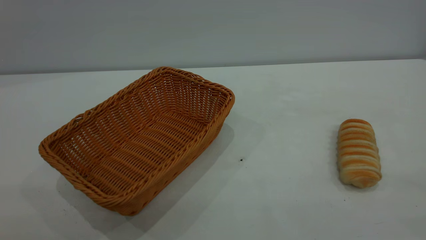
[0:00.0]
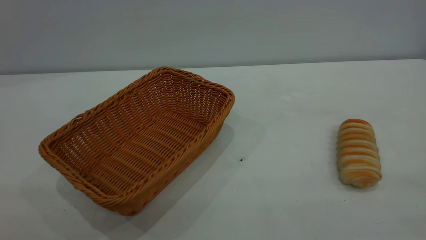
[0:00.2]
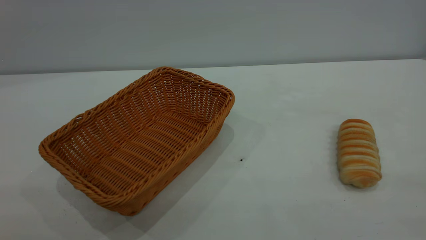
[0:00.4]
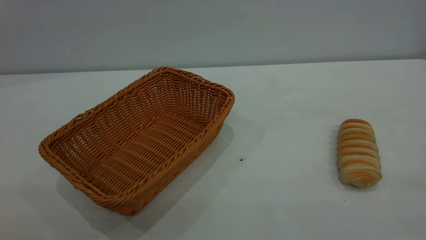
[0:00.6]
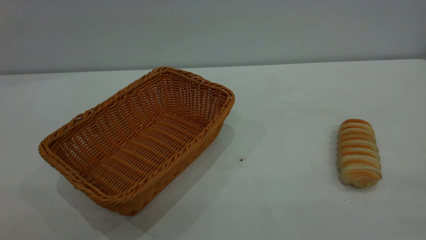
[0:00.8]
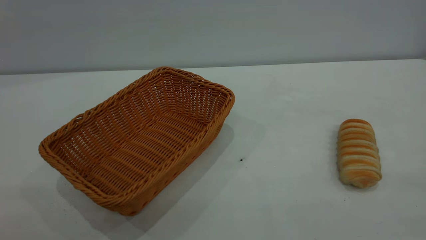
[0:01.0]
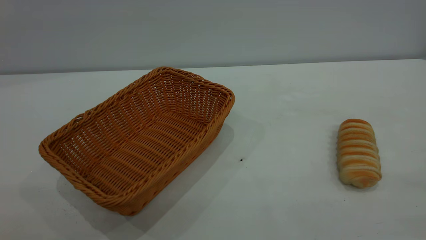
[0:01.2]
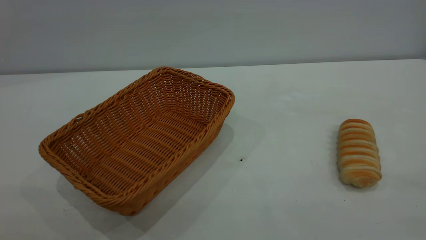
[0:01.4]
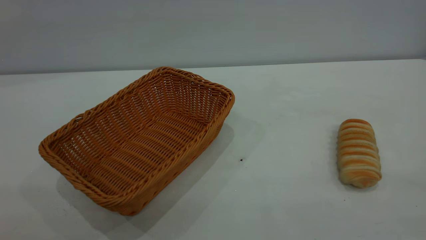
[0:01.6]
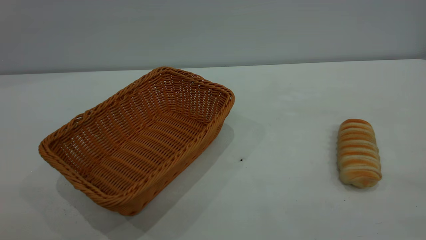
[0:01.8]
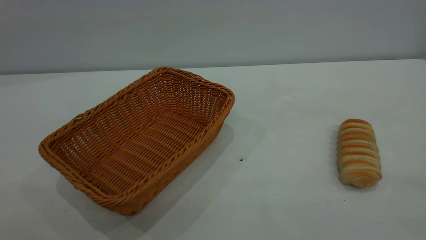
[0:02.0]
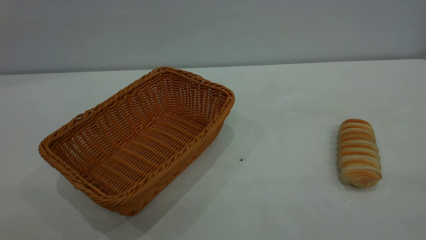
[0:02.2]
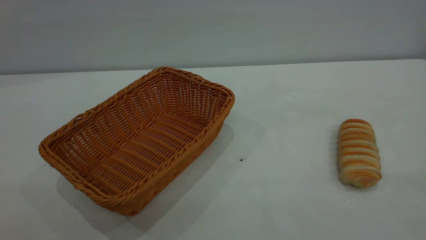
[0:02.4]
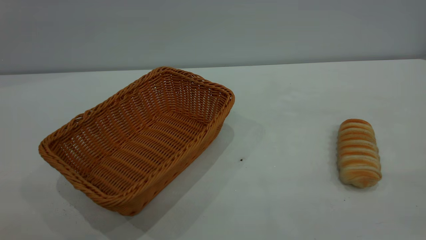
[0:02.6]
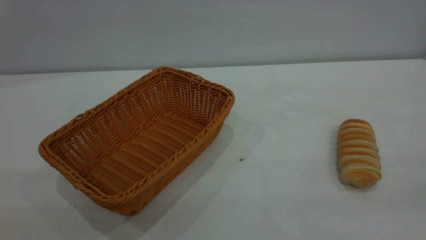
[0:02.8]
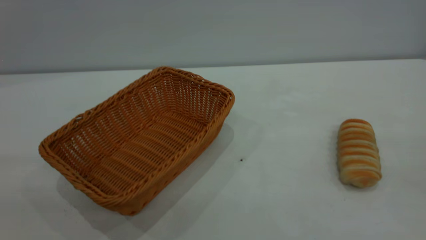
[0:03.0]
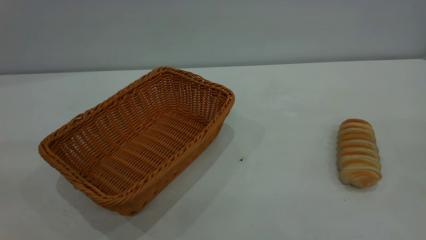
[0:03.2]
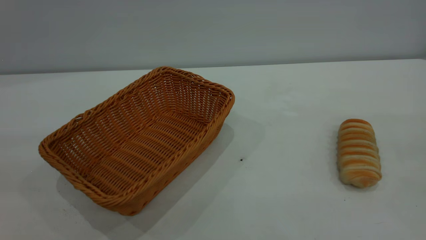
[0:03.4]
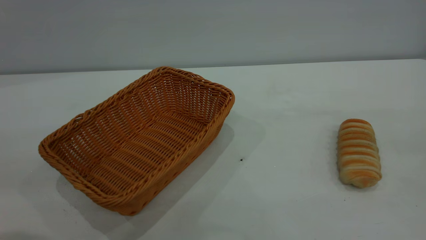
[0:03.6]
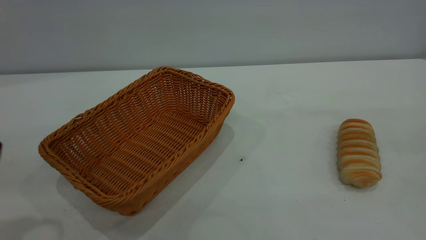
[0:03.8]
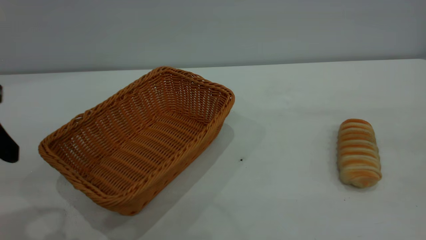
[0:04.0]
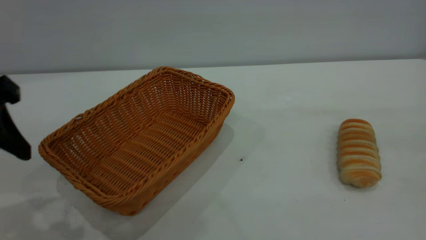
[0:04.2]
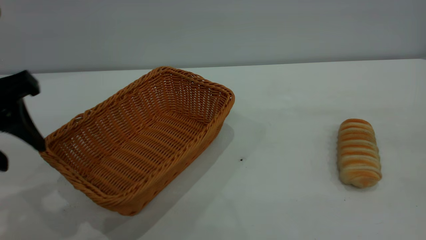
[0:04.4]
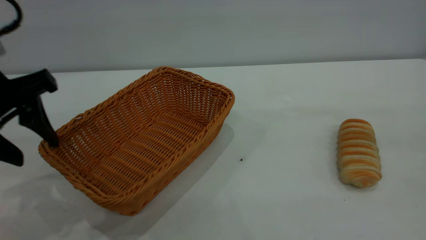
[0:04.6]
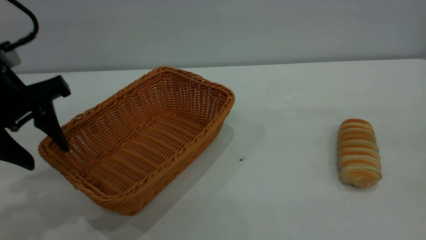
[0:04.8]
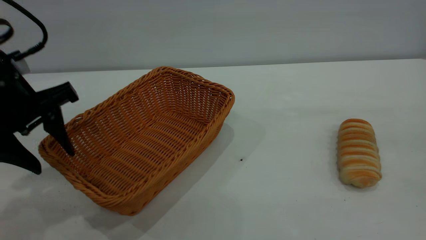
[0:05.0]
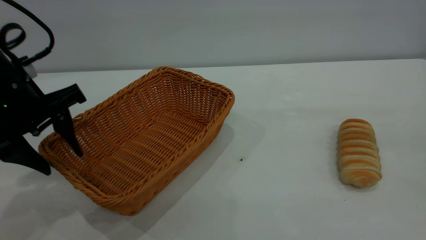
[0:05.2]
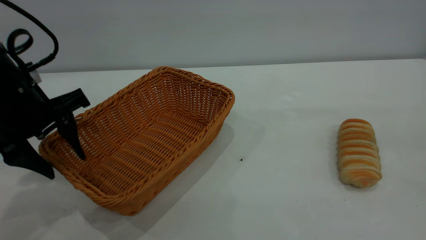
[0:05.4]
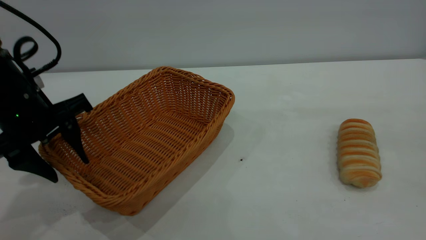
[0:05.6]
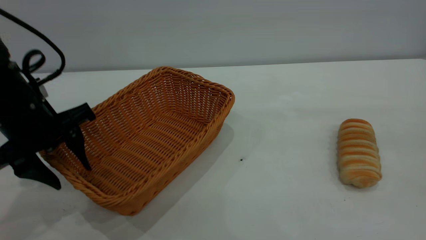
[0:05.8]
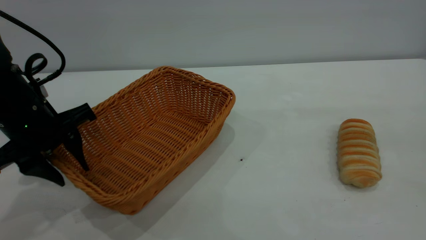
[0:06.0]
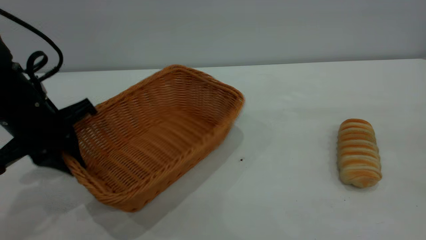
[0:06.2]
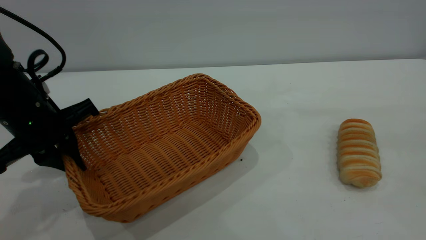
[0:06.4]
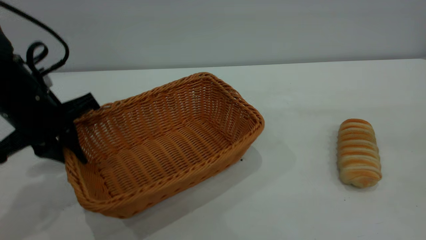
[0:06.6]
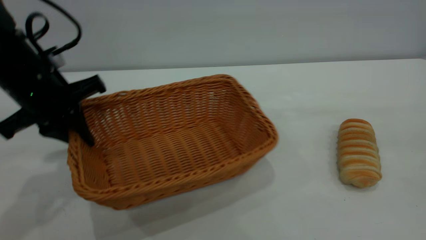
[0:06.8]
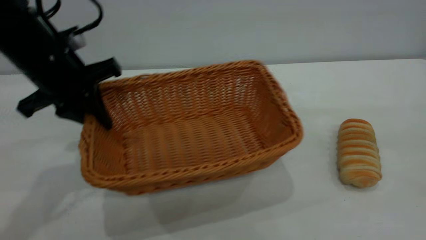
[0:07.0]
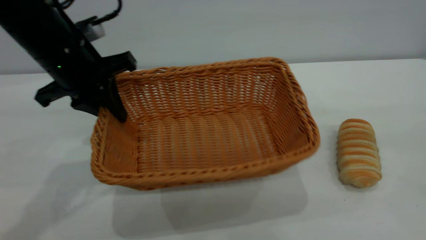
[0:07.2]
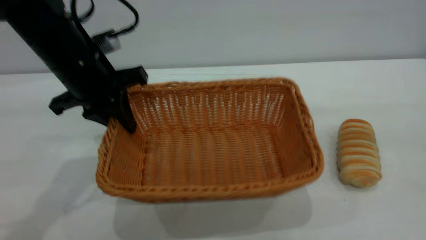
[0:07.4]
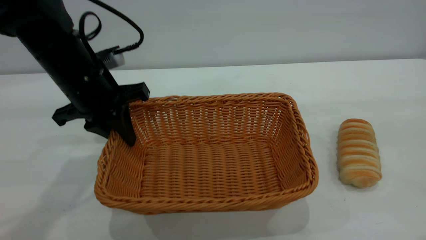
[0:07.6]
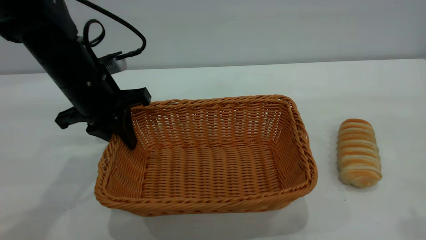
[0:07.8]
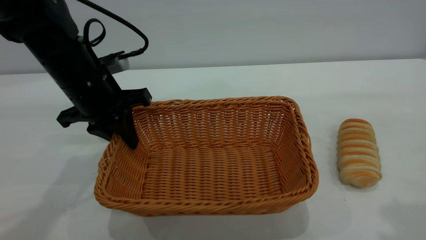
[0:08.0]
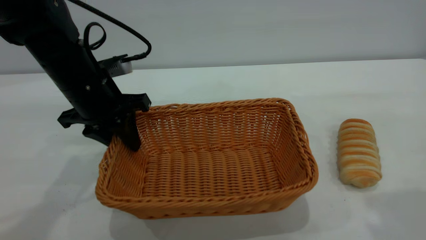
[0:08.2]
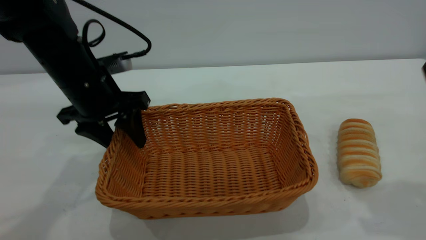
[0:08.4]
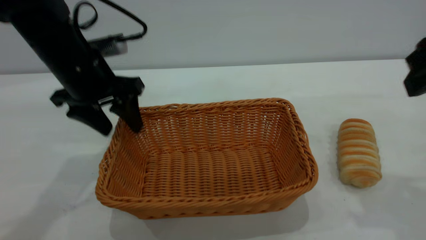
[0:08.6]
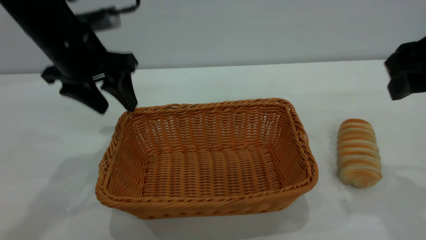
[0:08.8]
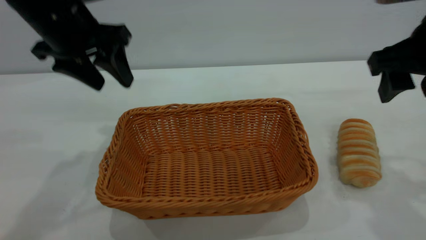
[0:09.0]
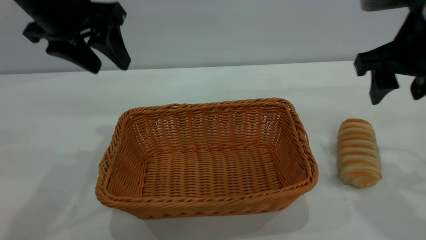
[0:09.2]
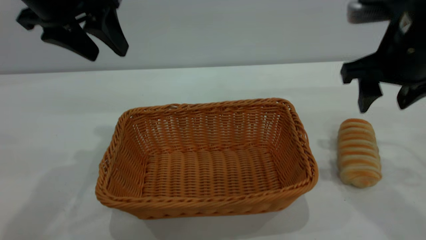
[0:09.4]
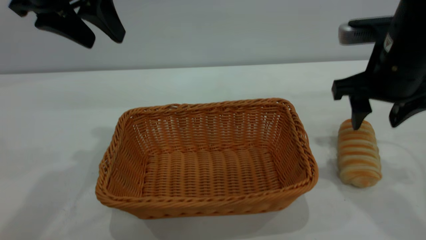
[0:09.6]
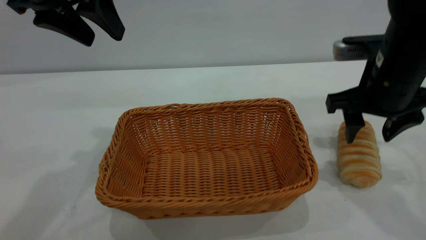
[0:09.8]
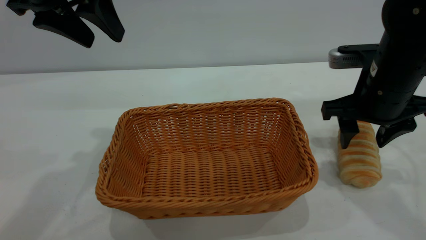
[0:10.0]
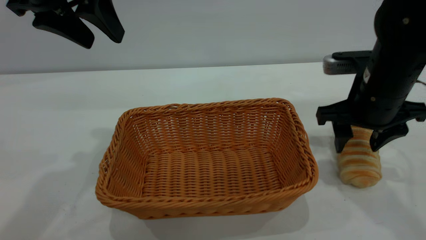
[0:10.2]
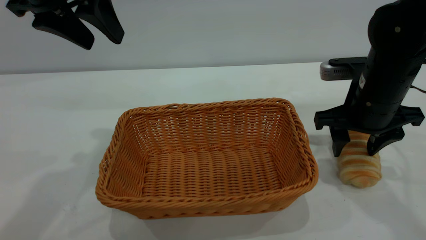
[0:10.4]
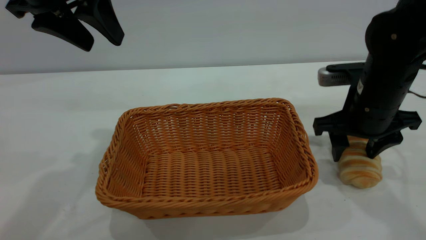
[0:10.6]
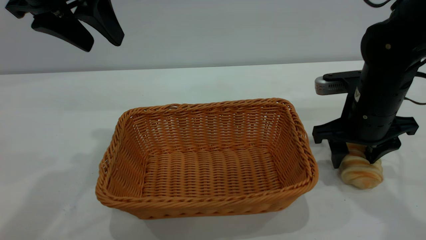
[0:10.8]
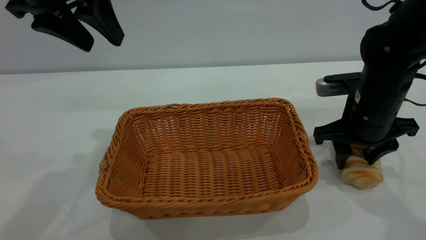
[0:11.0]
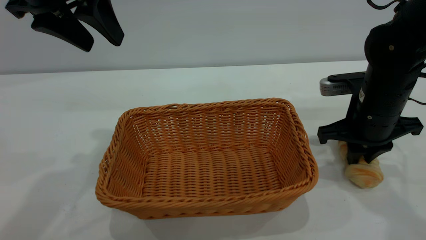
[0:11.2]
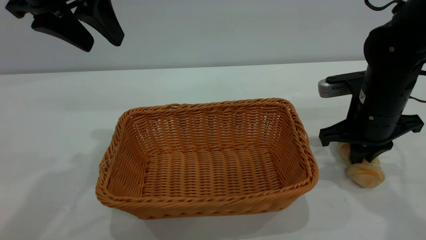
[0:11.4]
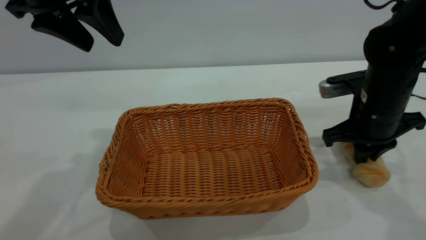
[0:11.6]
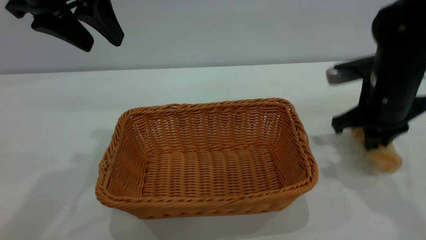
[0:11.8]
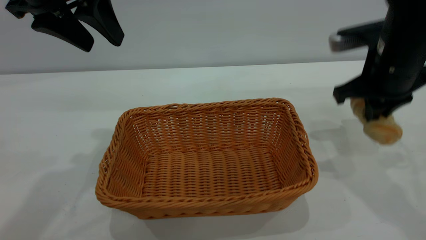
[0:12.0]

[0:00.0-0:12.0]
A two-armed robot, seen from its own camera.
Task of the whole recording: One hand grasps the yellow basket and places it in the middle of the table, while the other hand picks up the long bread and puts it into the yellow basket.
Step, 0:00.0 to 0:09.0: Move the basket to the center of view.
0:00.0 to 0:01.6: Both grippers stay put.
0:03.0 to 0:04.4: The left gripper is displaced forward and downward by about 20 cm.
0:04.4 to 0:06.0: The left gripper travels downward and forward by some 10 cm.
0:06.0 to 0:07.6: The left gripper heads to the right and forward, covering roughly 10 cm, and closes.
0:07.6 to 0:09.0: The left gripper heads upward, covering some 10 cm, and opens up; the right gripper moves forward and downward, about 20 cm.
0:09.0 to 0:10.4: The left gripper shifts approximately 5 cm upward. Meanwhile the right gripper shifts some 15 cm downward and forward.
0:10.4 to 0:12.0: The right gripper is displaced upward by approximately 5 cm, and closes.

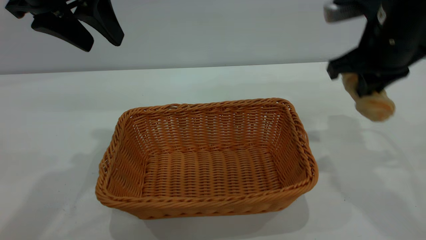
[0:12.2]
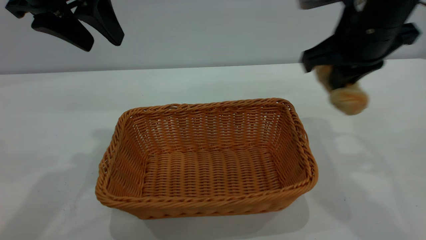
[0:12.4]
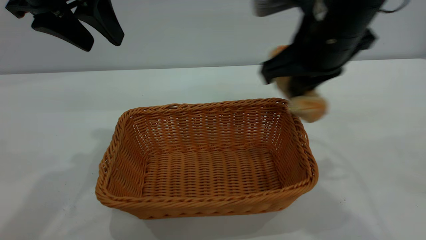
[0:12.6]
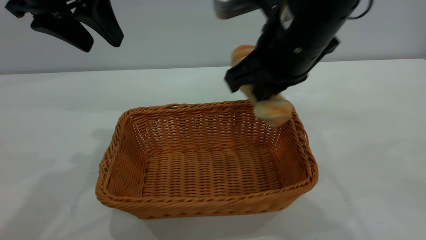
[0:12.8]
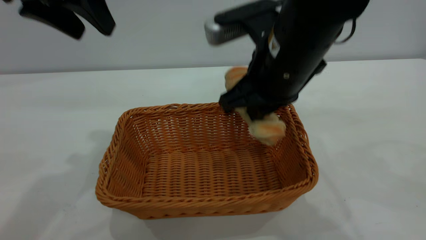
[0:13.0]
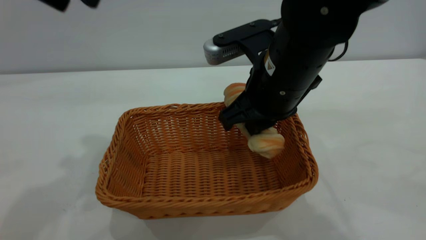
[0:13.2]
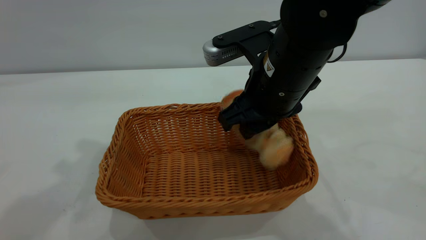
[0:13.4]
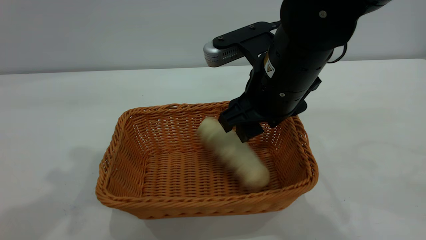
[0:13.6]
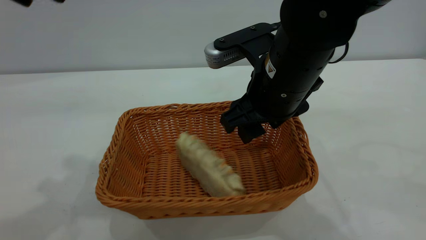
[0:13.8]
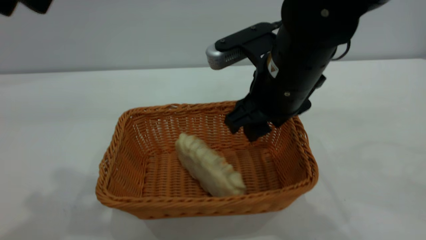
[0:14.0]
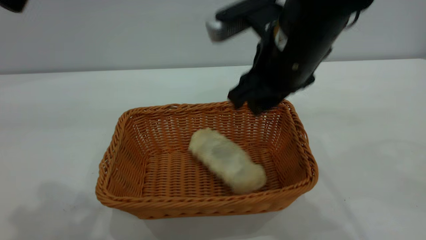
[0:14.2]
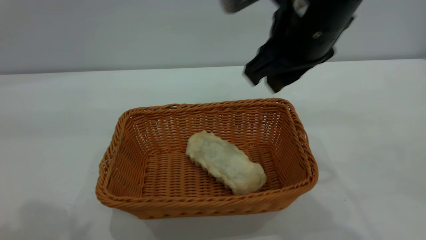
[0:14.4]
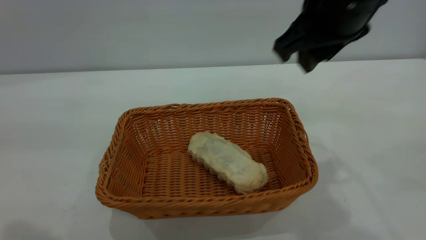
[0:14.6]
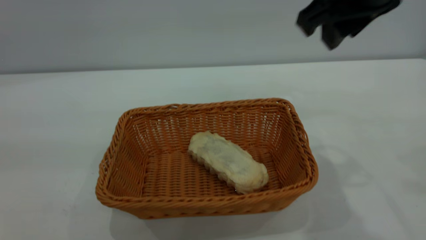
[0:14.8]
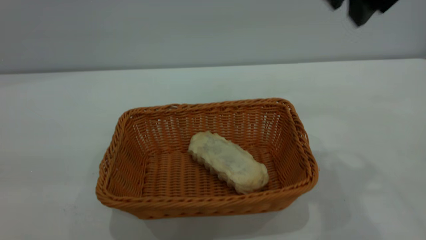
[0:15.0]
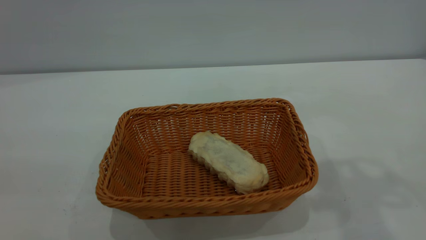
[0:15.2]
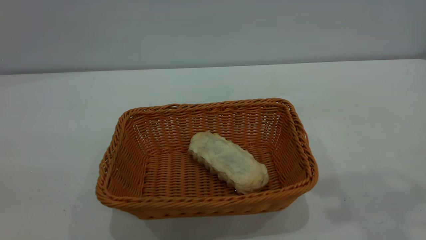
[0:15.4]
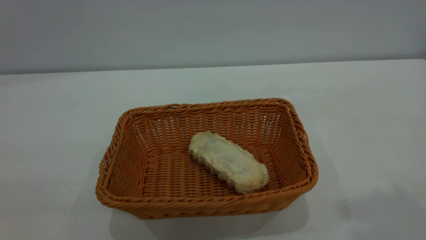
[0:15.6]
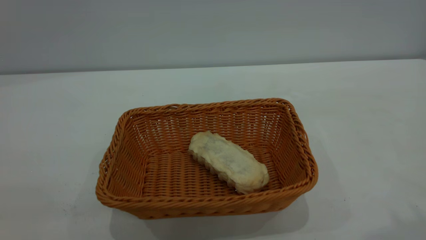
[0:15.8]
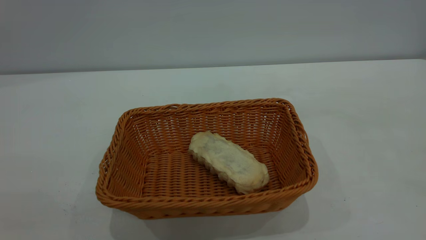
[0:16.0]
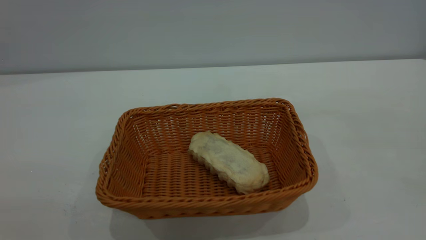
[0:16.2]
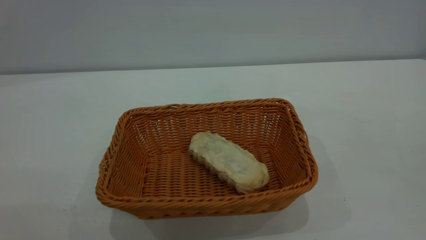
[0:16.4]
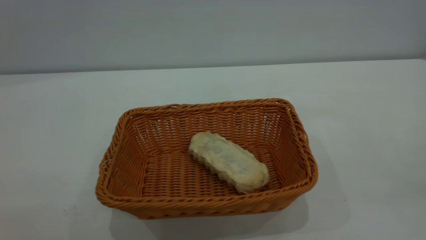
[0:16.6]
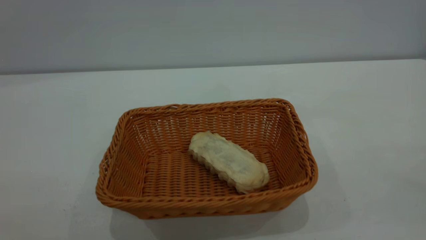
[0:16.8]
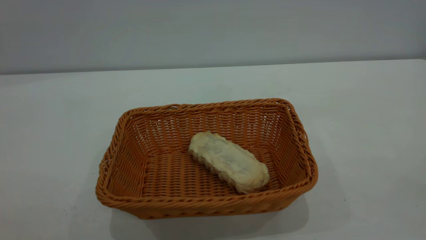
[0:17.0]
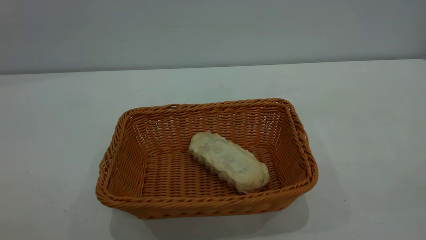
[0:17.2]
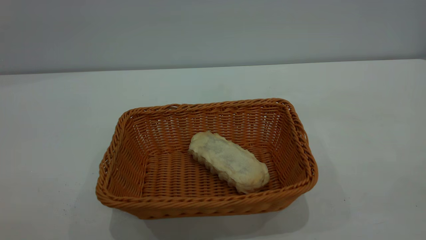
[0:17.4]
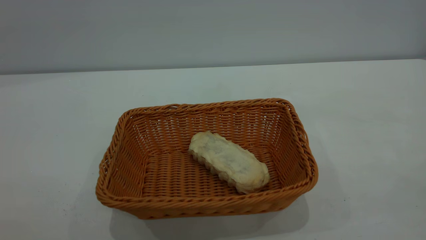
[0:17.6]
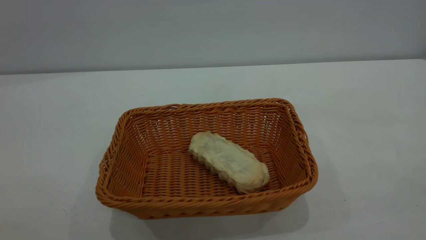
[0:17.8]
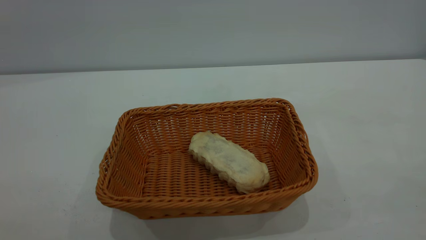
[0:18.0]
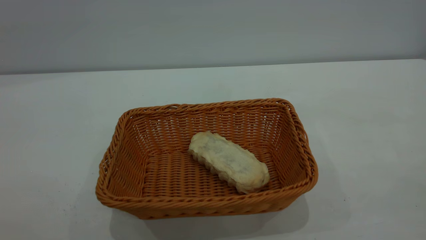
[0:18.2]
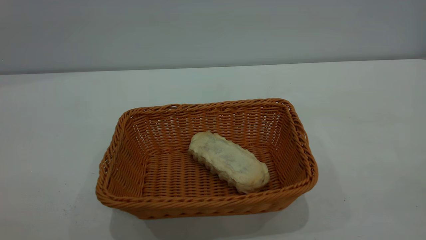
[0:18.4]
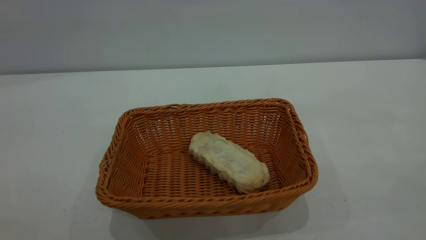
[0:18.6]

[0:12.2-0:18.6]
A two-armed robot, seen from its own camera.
Task of the whole recording: One hand grasps the yellow basket and places it in the middle of the table, while the other hand picks up the long bread and puts it into the yellow basket.
Step, 0:12.2 to 0:14.4: place the bread into the basket.
0:12.2 to 0:13.8: The right gripper heads to the left, covering about 15 cm, and opens its fingers. The left gripper is displaced backward and upward by some 10 cm.
0:13.8 to 0:15.4: The right gripper shifts some 25 cm upward and to the right, and closes its fingers. The left gripper moves backward, roughly 20 cm.
